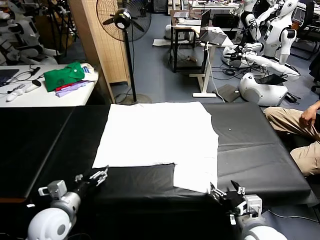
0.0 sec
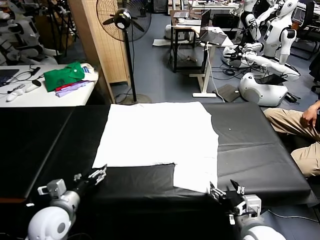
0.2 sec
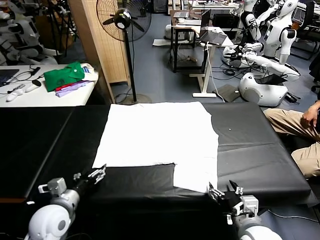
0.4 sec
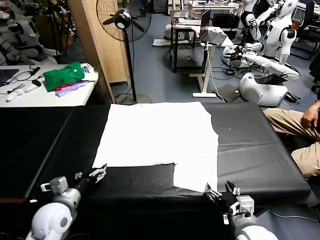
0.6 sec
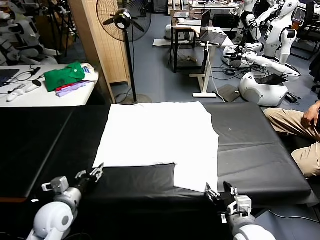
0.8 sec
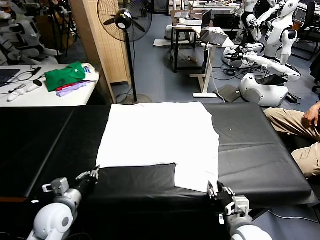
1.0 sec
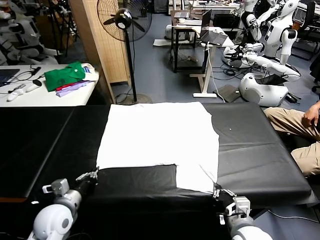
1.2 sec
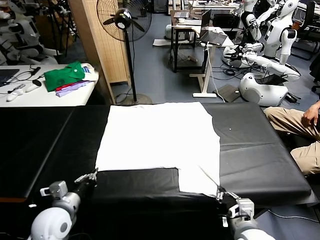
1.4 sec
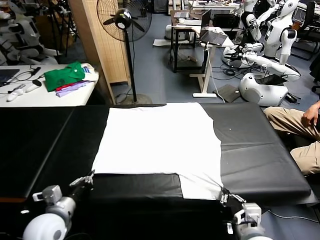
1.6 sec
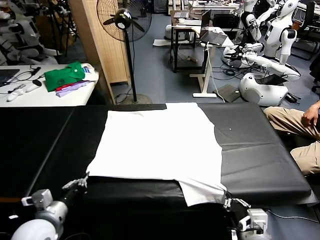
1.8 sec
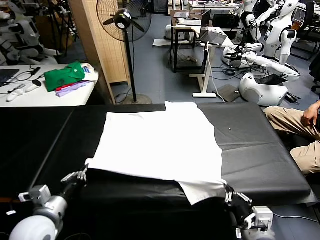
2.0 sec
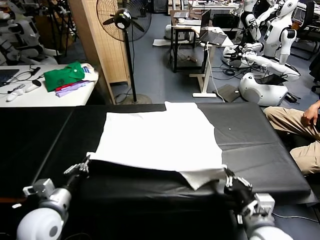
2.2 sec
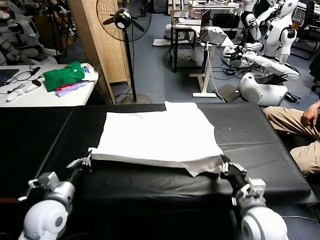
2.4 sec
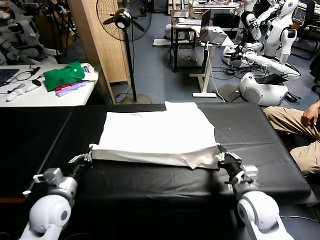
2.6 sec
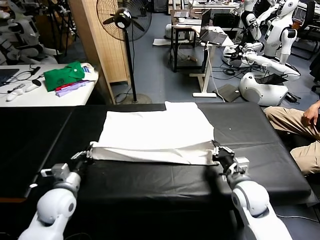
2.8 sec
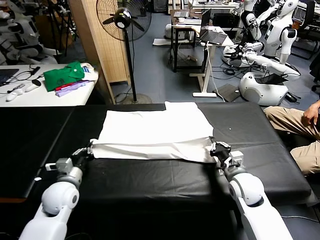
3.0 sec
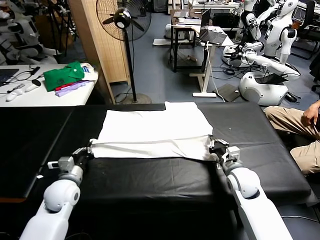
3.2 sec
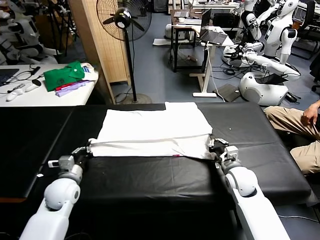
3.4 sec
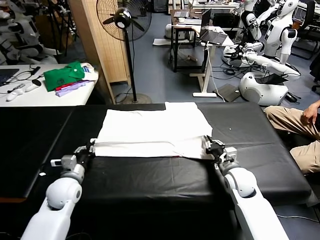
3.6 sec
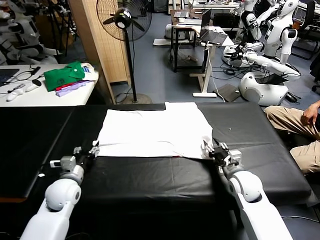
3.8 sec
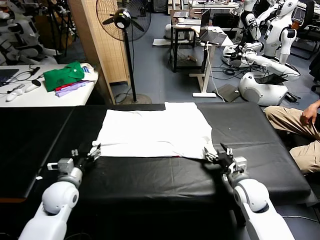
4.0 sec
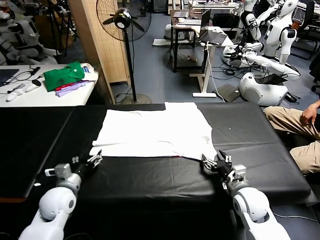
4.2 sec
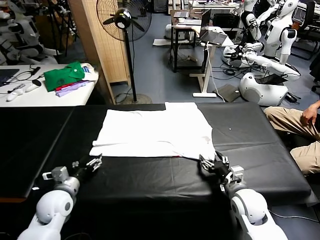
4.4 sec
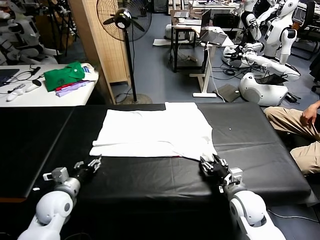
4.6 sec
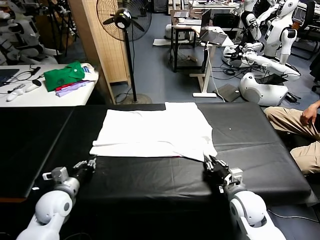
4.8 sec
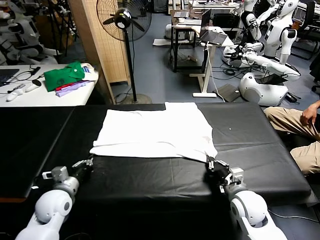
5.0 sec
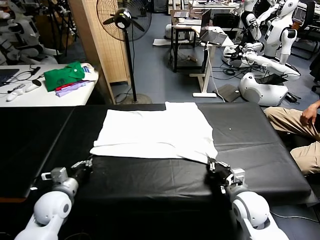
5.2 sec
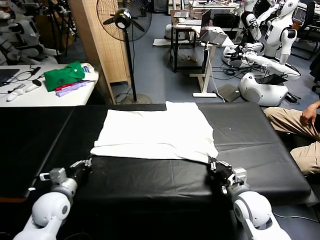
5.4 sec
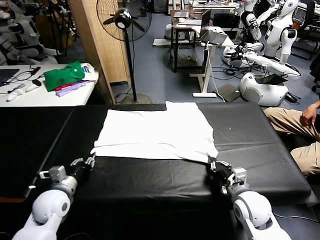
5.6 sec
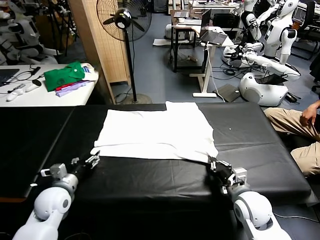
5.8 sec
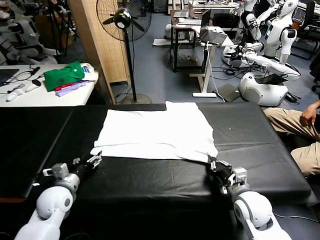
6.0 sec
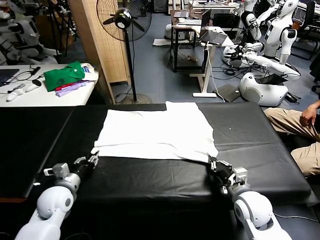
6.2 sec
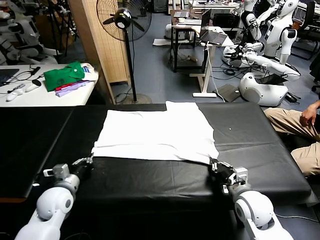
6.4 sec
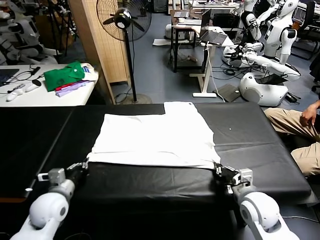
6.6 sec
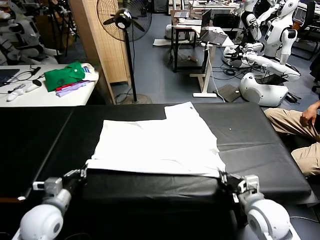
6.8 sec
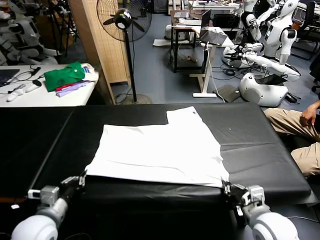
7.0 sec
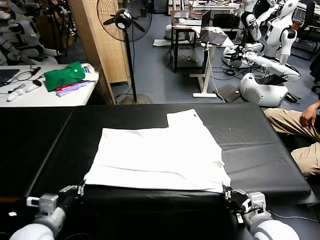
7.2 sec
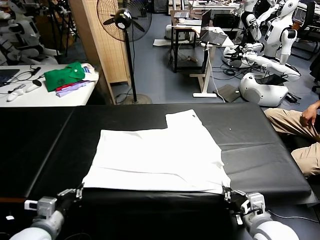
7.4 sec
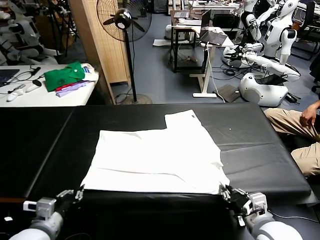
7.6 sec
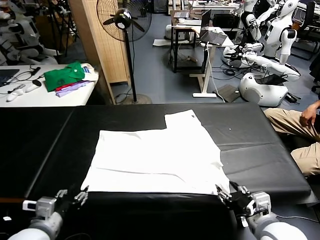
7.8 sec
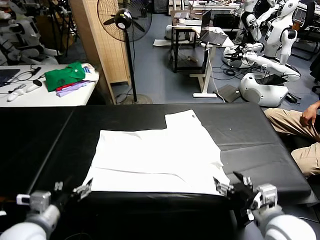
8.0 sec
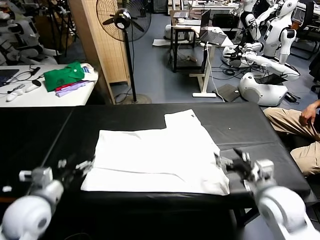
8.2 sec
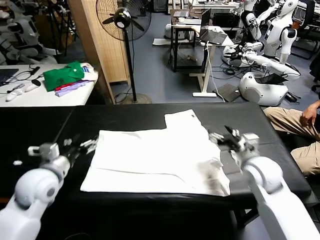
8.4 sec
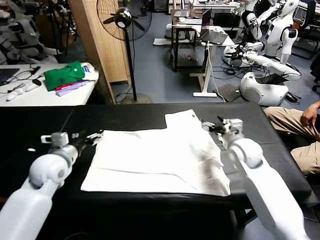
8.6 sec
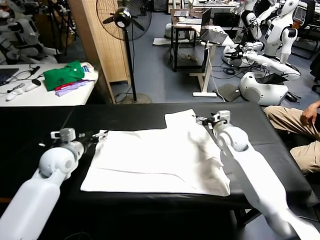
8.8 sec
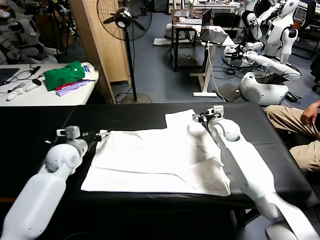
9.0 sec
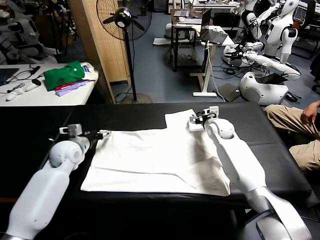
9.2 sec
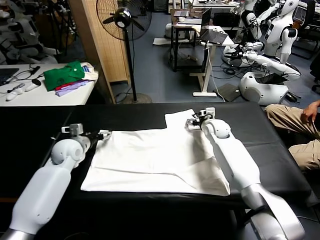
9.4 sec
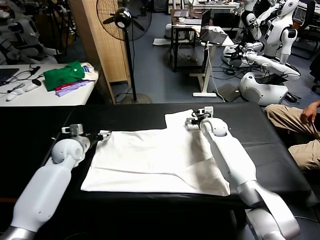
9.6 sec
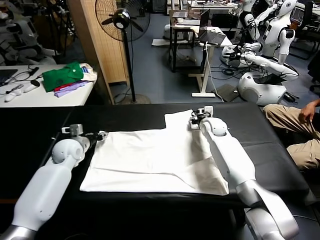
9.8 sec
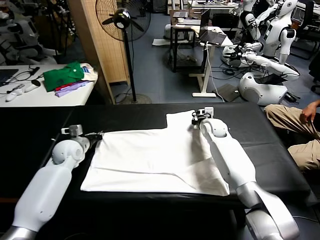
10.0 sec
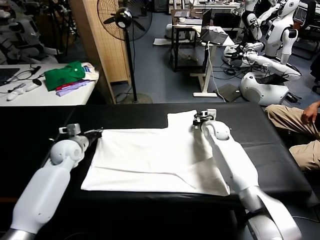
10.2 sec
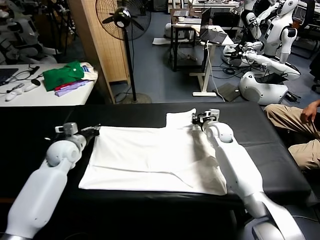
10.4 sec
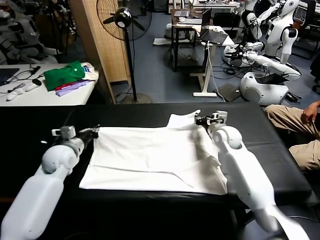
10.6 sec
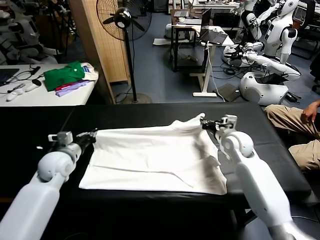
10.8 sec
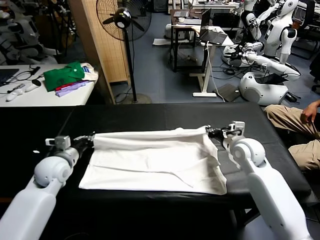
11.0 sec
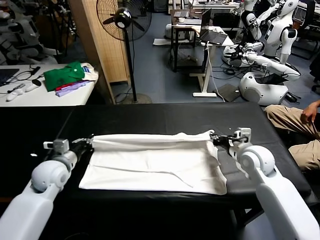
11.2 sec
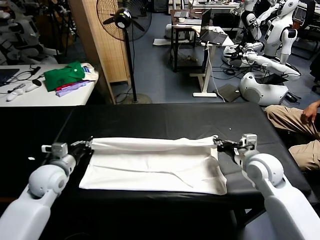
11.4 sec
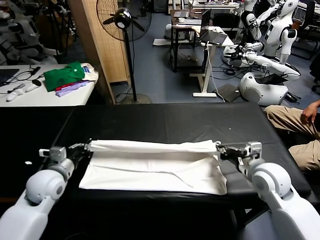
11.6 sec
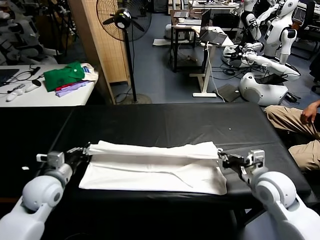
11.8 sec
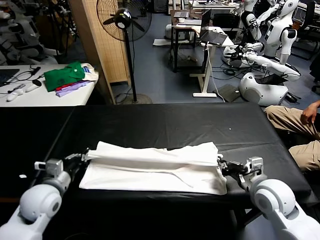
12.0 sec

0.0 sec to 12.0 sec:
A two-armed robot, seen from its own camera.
Task of the whole recording: fold and organize the clothes.
Step, 0.0 sec to 1.2 sec: use both grippers simultaneously to clamp the lower edge of the clothing fabric.
Step, 1.6 sec to 3.6 sec: use both grippers to drag the lower edge of the fabric forward and fold it over the upper edge.
Step, 3.8 sec to 7.6 sec: Drag the clothes downward with both gripper.
Step, 7.8 sec to 10.0 sec: use both grippers simultaneously to clamp the upper edge of the clothing fabric.
1.6 sec to 3.0 sec: The right gripper shifts approximately 25 cm forward; the left gripper heads forward, covering about 10 cm.
3.0 sec to 4.4 sec: The left gripper opens up. The right gripper is displaced backward by some 5 cm, and opens up.
4.4 sec to 6.0 sec: The left gripper closes, then opens again. The right gripper closes.
6.0 sec to 7.6 sec: Both grippers move backward and upward, about 15 cm. The left gripper closes up. The right gripper opens its fingers.
7.6 sec to 9.0 sec: Both grippers move forward, roughly 30 cm. The left gripper opens up.
9.0 sec to 10.4 sec: The right gripper closes up; the left gripper closes up.
10.4 sec to 12.0 sec: The right gripper shifts about 25 cm backward; the left gripper is displaced backward by about 15 cm.

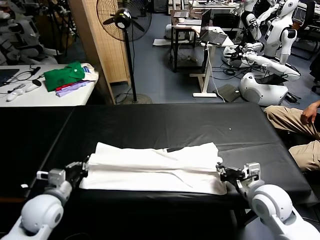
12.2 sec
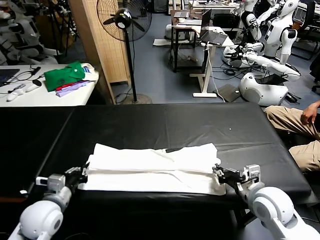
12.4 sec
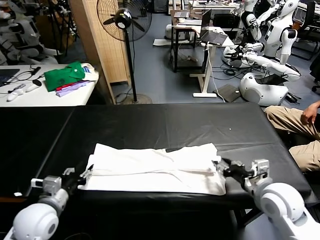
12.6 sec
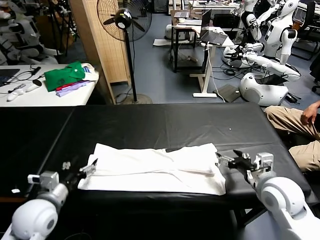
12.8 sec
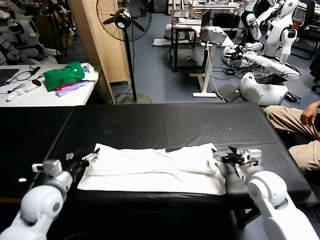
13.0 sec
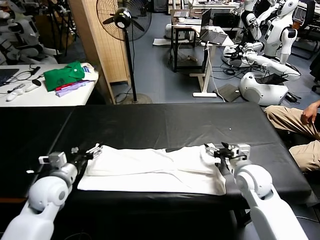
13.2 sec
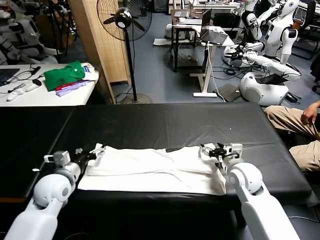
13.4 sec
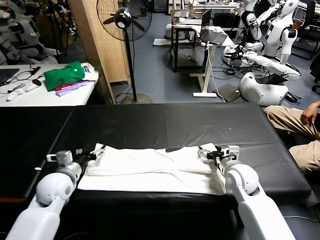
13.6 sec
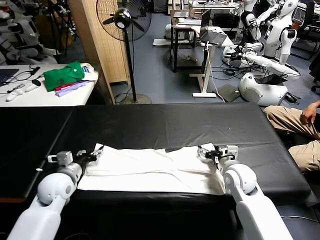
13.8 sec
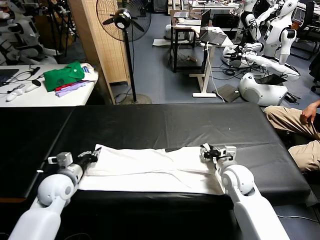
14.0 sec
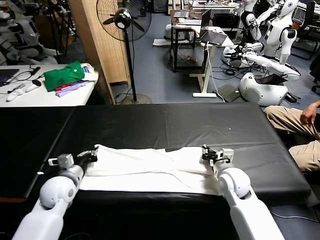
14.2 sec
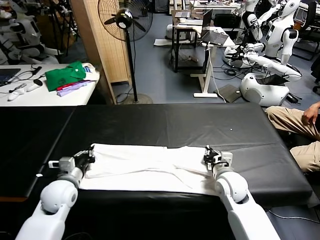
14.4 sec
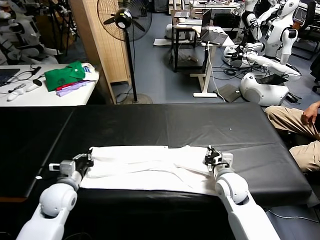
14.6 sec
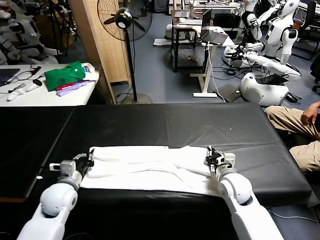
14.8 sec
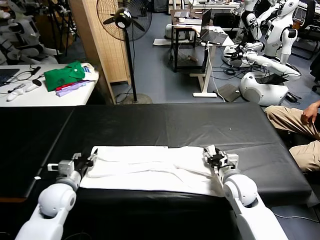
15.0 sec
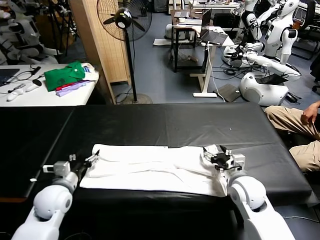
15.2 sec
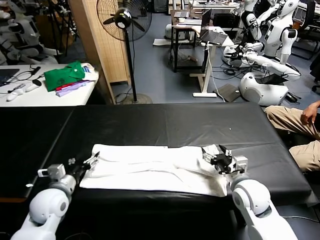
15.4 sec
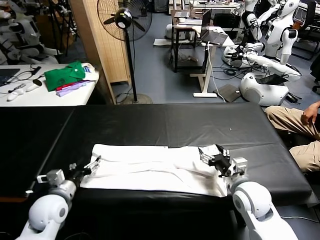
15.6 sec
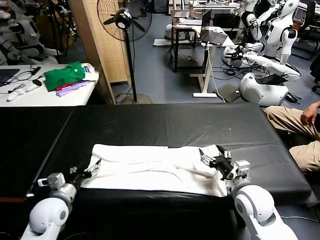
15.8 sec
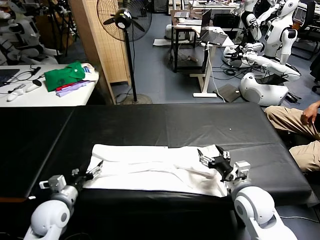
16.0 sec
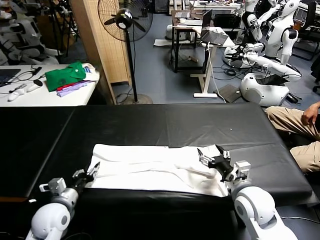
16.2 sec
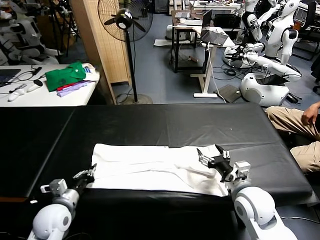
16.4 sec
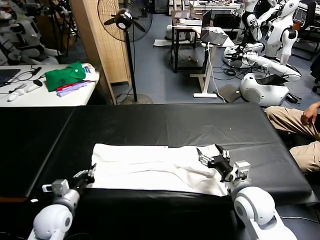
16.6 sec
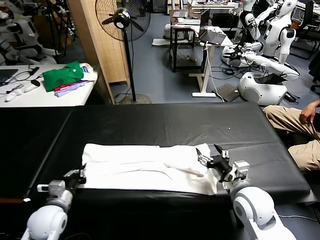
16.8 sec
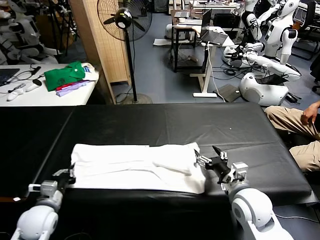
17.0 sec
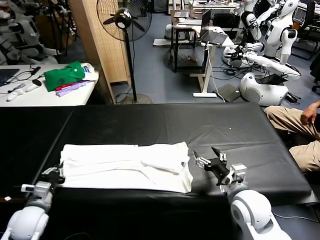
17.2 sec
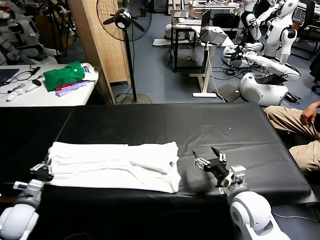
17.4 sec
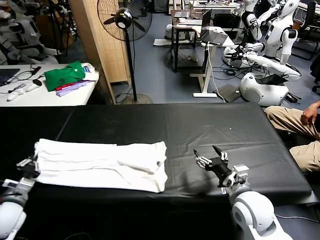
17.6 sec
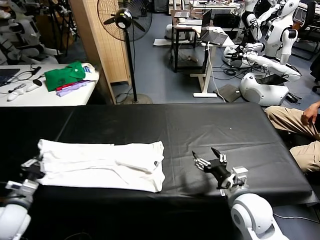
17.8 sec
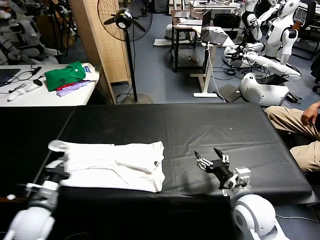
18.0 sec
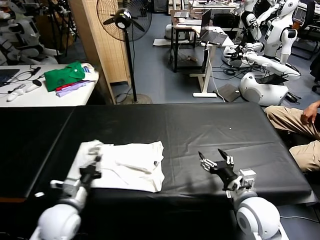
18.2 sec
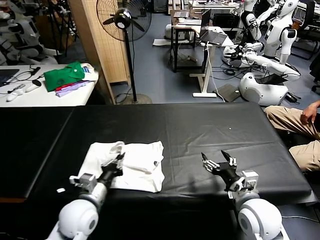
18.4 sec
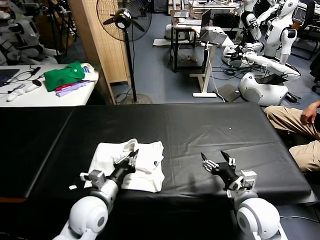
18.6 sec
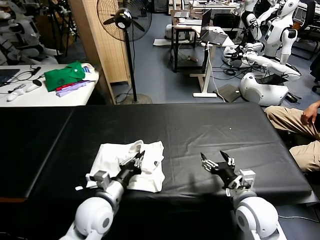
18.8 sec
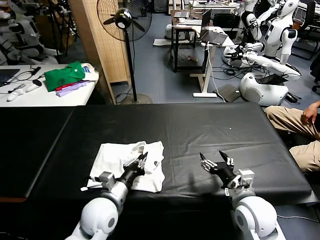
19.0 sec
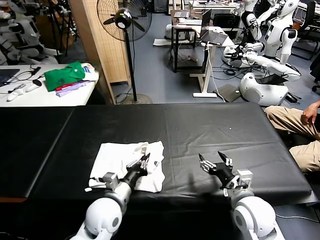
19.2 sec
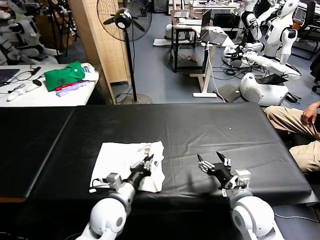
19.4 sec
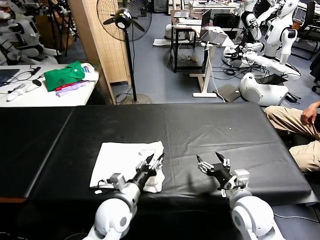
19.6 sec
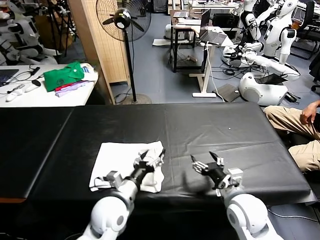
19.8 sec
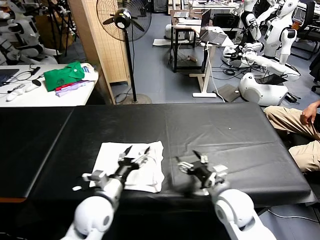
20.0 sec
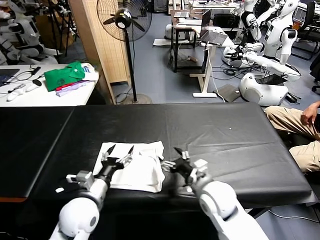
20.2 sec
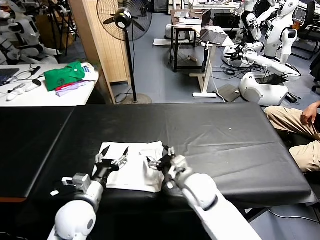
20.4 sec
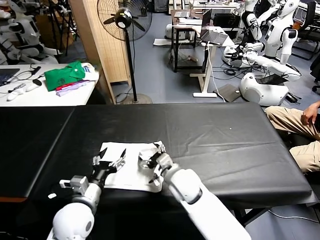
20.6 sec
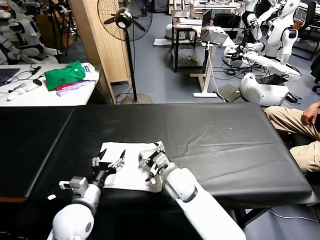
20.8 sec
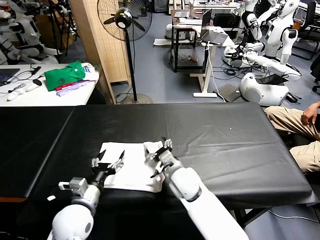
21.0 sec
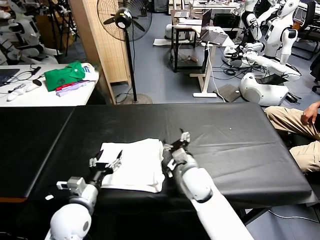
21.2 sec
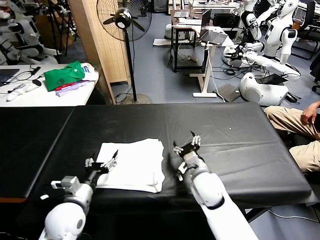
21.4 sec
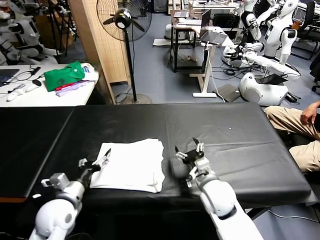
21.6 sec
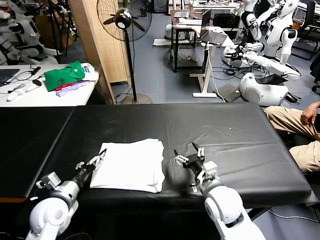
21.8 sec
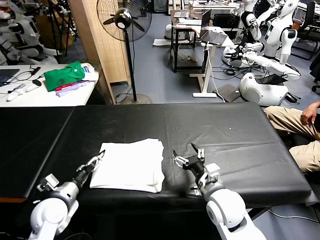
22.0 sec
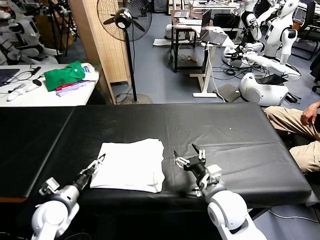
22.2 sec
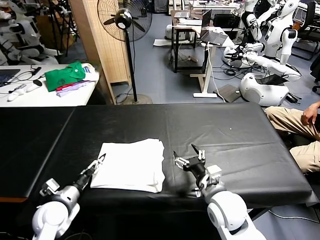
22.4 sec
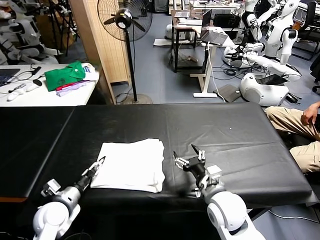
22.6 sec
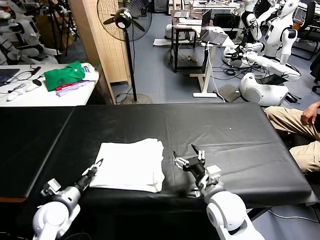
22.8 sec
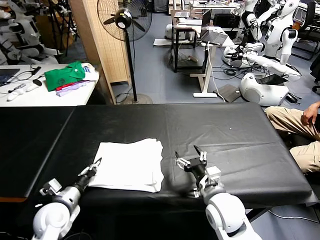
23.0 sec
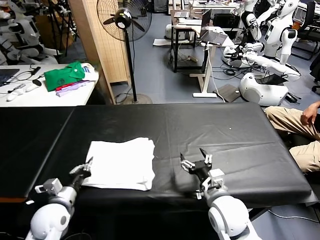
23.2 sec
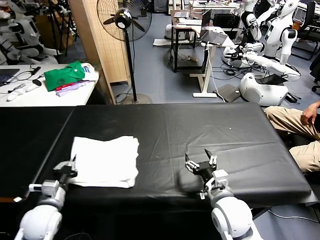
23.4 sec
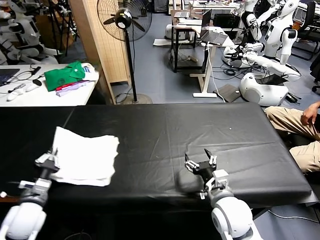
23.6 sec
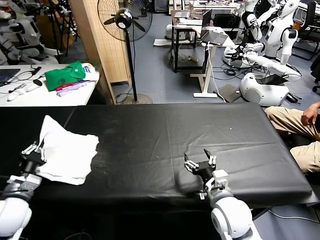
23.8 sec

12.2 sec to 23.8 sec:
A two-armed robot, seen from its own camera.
Task of the whole recording: fold and organize the clothes.
Step, 12.6 sec to 16.6 sec: use the left gripper to clamp the left edge of the fabric.
Step, 16.8 sec to 19.4 sec: use the left gripper to drag the left edge of the fabric to the left and folds it over the right edge.
12.2 sec to 13.6 sec: Both grippers travel together forward, roughly 10 cm. The left gripper opens up. Meanwhile the right gripper opens.
13.6 sec to 15.0 sec: The left gripper closes and opens again, while the right gripper closes, then reopens.
15.0 sec to 16.6 sec: The right gripper travels backward and upward by roughly 10 cm; the left gripper moves backward, about 5 cm, and closes its fingers.
16.6 sec to 18.0 sec: The left gripper reaches some 15 cm to the left, then returns.
18.0 sec to 19.4 sec: The left gripper is displaced to the right by approximately 20 cm.
19.4 sec to 21.0 sec: The right gripper moves to the left and forward, approximately 20 cm. Meanwhile the left gripper heads to the left, covering about 10 cm, and opens.
21.0 sec to 22.4 sec: The left gripper heads to the left, covering some 10 cm, while the right gripper is displaced to the right and backward by some 15 cm.
22.4 sec to 23.8 sec: The left gripper shifts approximately 10 cm to the left and upward, and closes its fingers.
